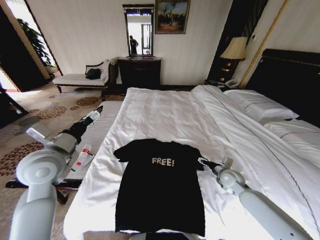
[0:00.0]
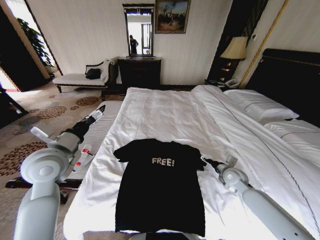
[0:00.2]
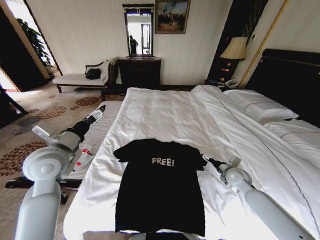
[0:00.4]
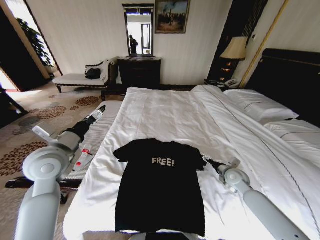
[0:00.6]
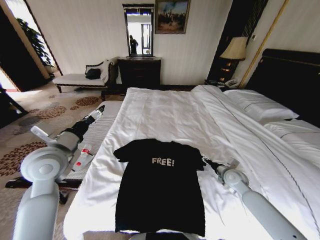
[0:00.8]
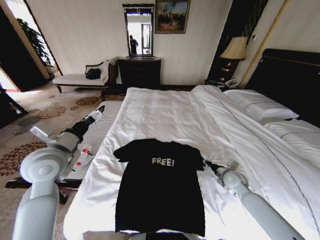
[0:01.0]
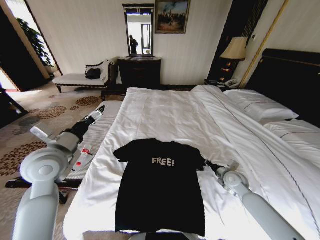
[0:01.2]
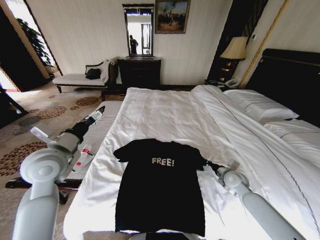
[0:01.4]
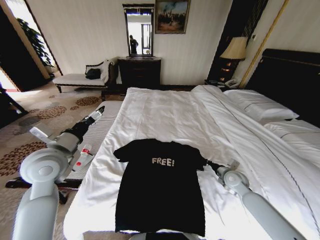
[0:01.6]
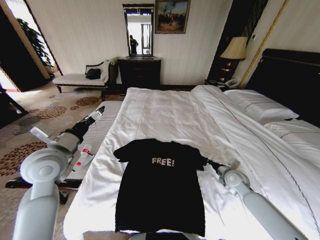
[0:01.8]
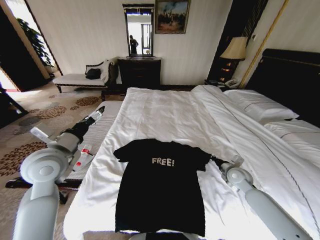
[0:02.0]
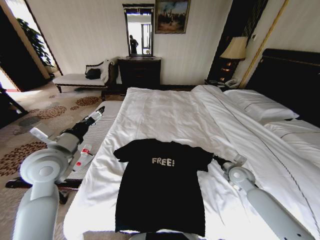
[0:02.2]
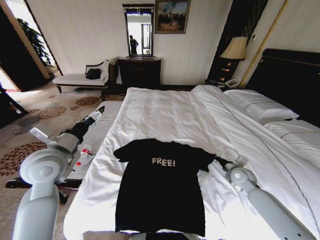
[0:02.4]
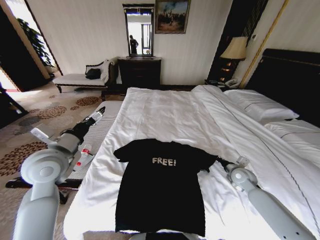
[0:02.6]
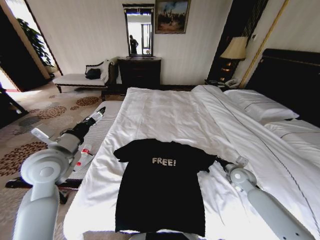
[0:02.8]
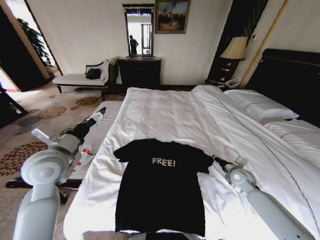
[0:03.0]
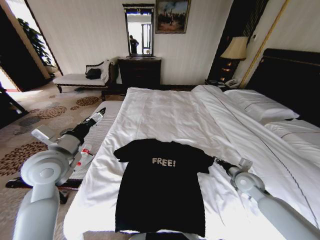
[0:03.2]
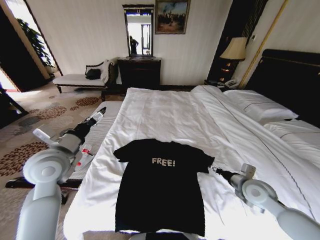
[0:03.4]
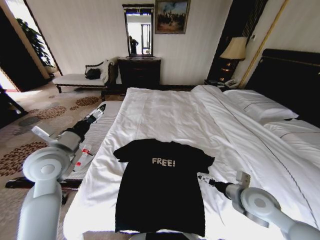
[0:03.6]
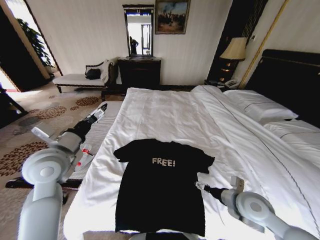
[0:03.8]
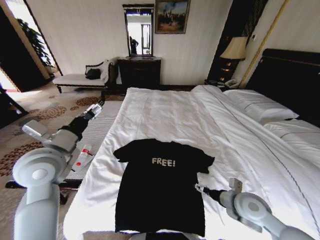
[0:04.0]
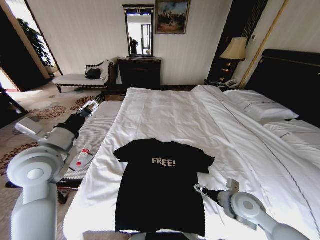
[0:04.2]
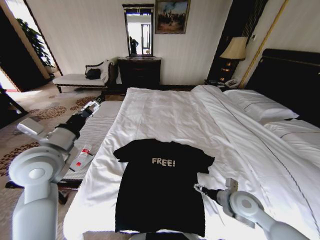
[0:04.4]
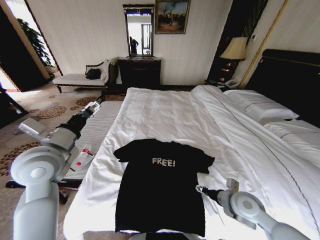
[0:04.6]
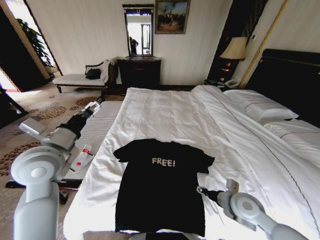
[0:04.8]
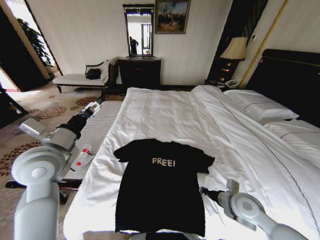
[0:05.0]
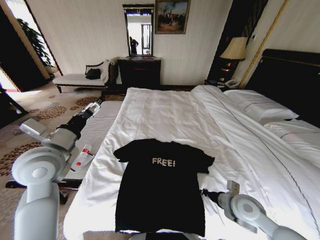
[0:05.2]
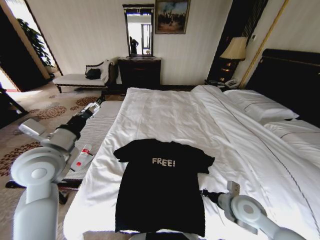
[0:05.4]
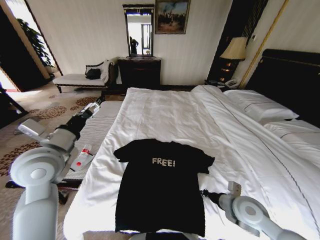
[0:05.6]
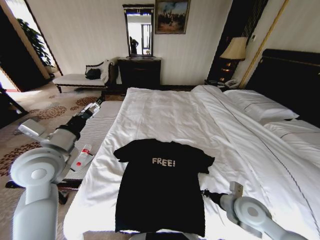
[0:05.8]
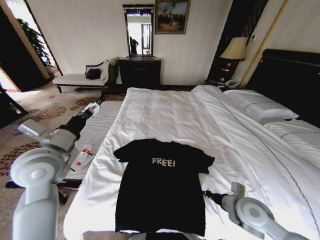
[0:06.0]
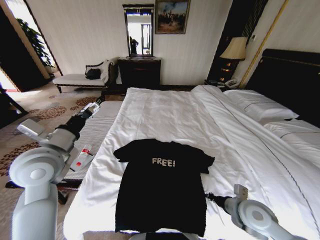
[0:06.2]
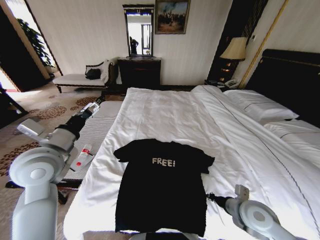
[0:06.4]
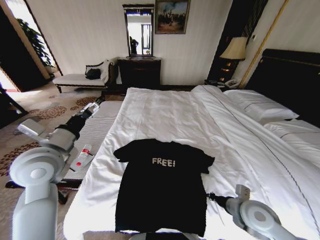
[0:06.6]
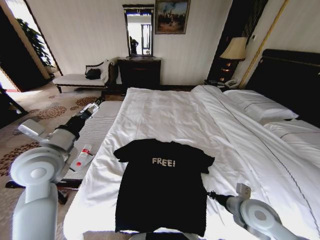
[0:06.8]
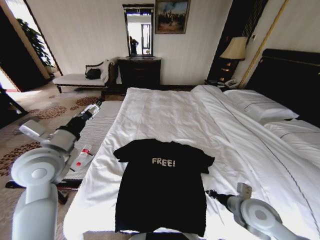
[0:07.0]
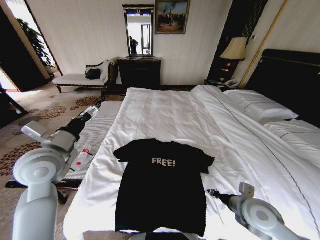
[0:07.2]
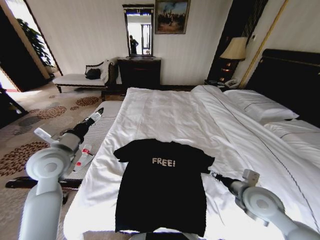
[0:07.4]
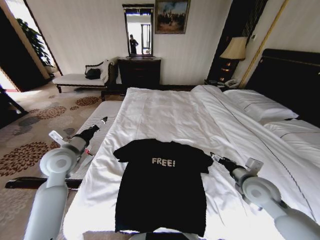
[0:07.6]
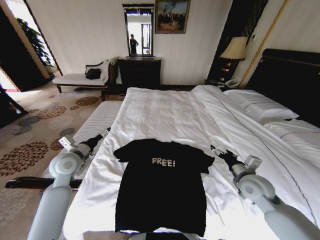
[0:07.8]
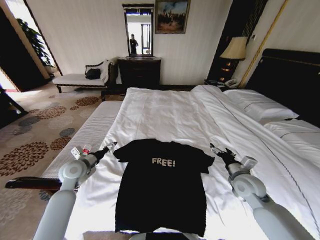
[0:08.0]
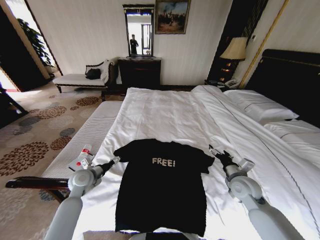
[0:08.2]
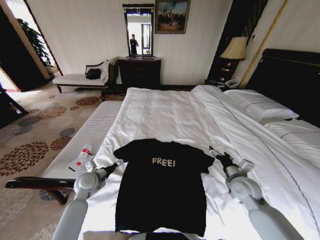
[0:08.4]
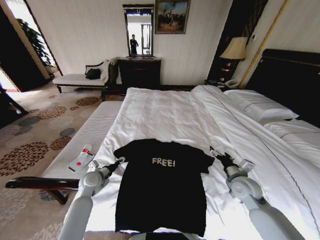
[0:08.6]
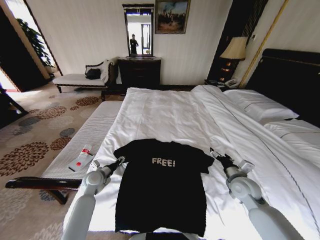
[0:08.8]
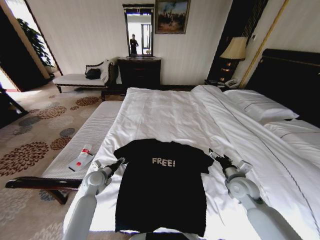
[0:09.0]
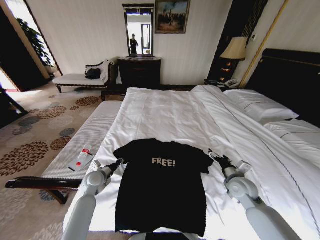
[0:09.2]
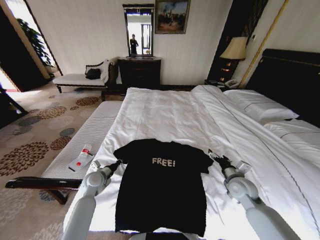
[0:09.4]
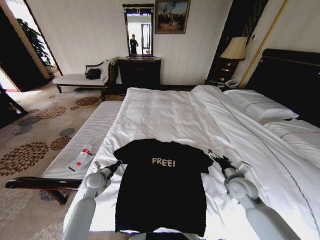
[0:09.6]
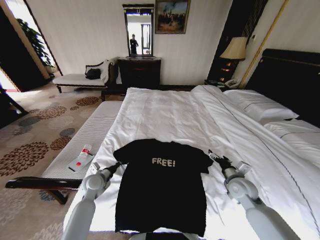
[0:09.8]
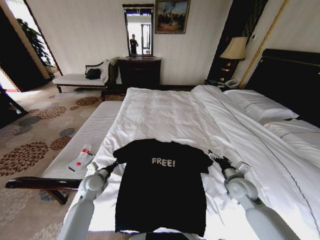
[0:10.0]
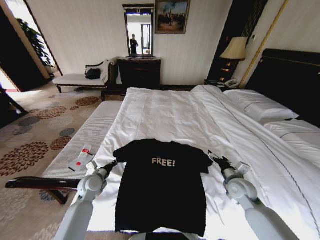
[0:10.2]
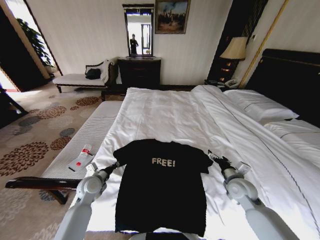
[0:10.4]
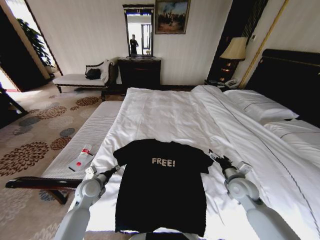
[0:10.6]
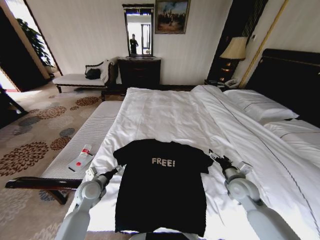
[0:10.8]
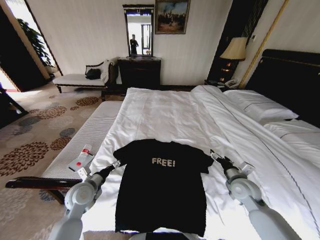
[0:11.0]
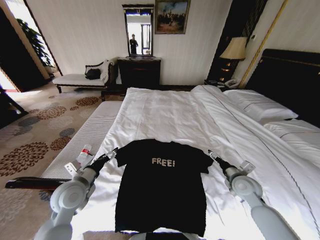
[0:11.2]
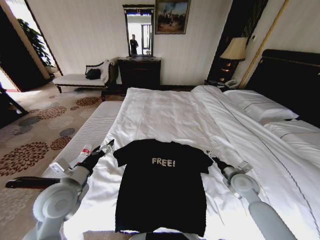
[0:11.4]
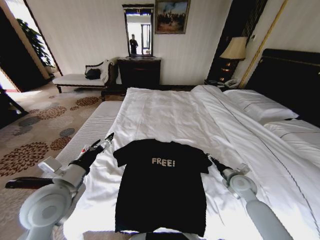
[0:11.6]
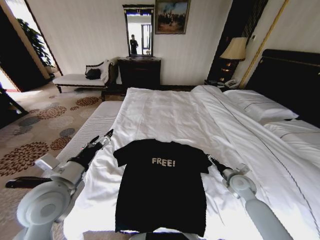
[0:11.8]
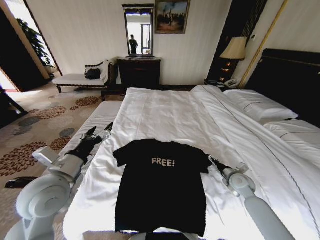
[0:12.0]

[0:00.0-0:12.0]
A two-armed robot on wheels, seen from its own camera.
Task of the whole recording: Fold the clothes on the bed.
0:00.0 to 0:01.6: The right gripper closes its fingers.
0:01.6 to 0:03.0: The grippers make only small movements.
0:03.0 to 0:04.4: The right gripper shifts approximately 15 cm backward and to the left, and opens.
0:04.4 to 0:06.0: The right gripper closes.
0:06.0 to 0:07.6: The right gripper is displaced forward by about 5 cm, and opens its fingers. Meanwhile the left gripper shifts some 10 cm downward and forward.
0:07.6 to 0:09.0: The left gripper moves downward, approximately 20 cm, and closes, while the right gripper goes some 5 cm downward.
0:09.0 to 0:10.4: There are only small adjustments of the grippers.
0:10.4 to 0:12.0: The right gripper shifts by roughly 5 cm, while the left gripper is displaced upward and backward by approximately 25 cm, and opens up.

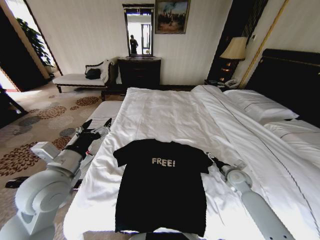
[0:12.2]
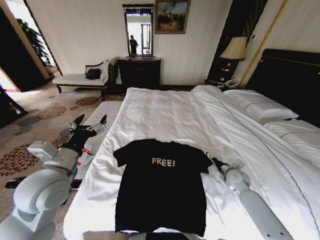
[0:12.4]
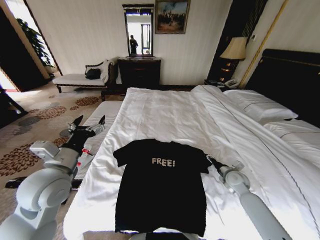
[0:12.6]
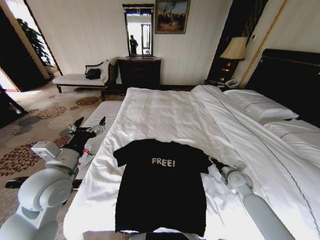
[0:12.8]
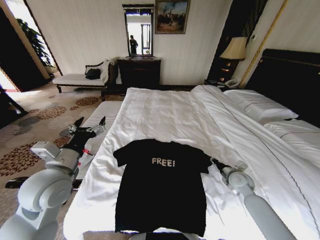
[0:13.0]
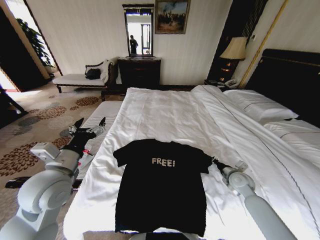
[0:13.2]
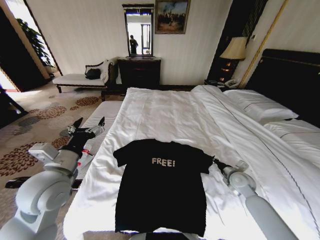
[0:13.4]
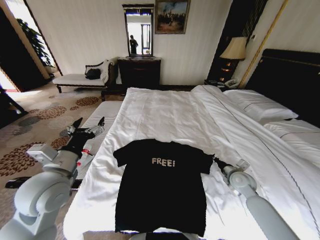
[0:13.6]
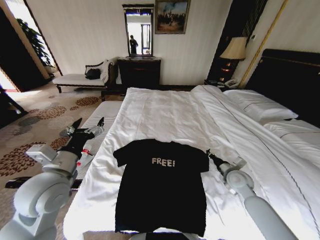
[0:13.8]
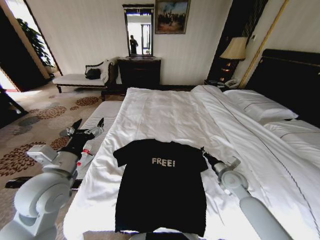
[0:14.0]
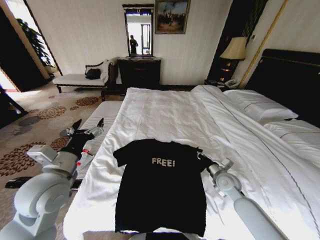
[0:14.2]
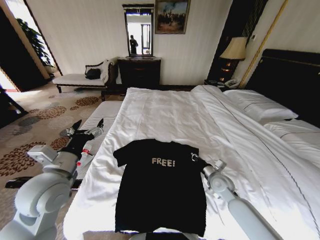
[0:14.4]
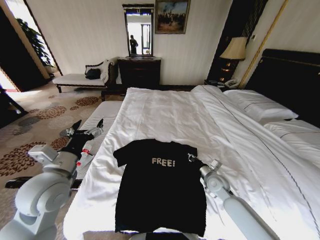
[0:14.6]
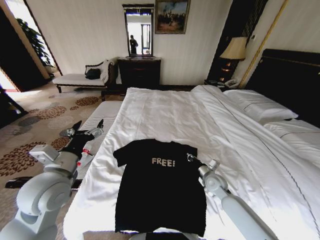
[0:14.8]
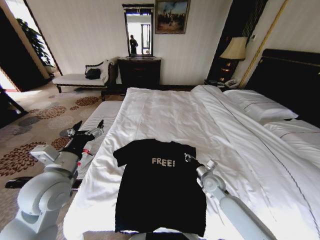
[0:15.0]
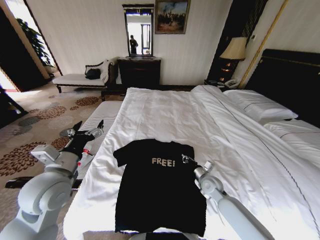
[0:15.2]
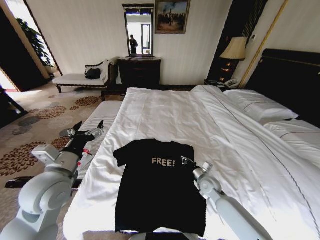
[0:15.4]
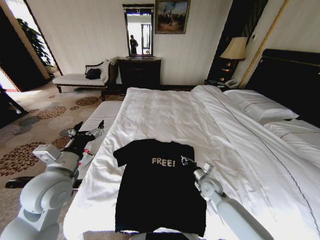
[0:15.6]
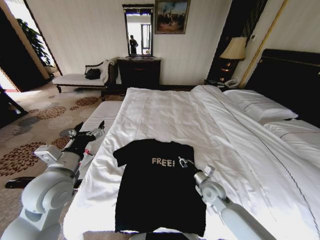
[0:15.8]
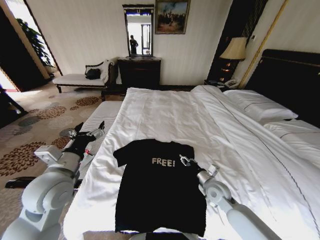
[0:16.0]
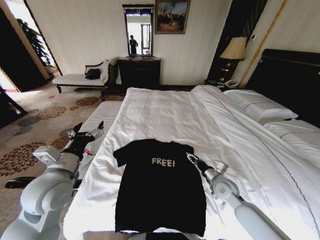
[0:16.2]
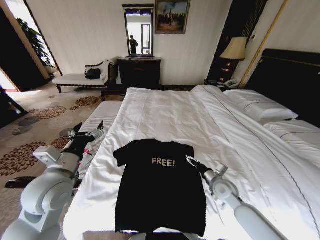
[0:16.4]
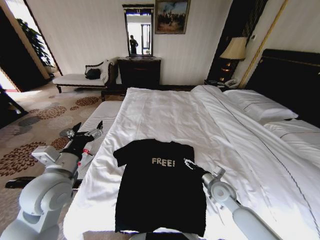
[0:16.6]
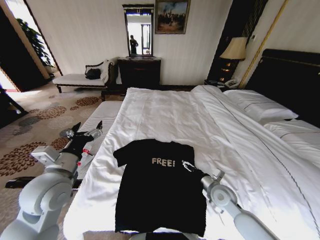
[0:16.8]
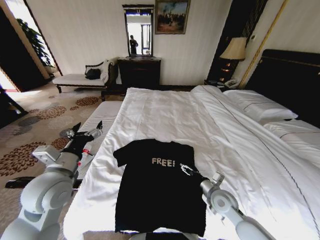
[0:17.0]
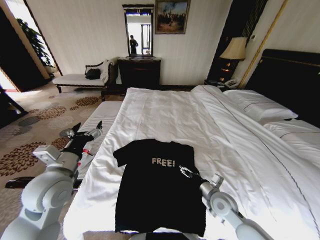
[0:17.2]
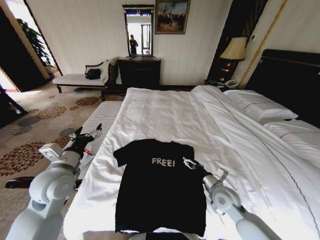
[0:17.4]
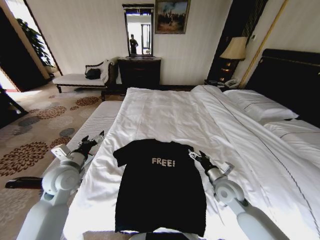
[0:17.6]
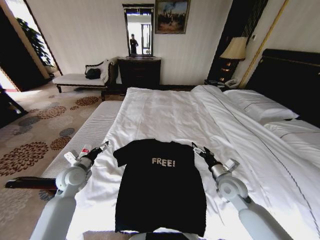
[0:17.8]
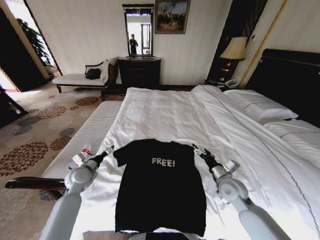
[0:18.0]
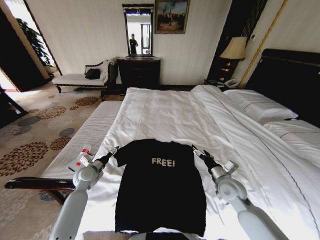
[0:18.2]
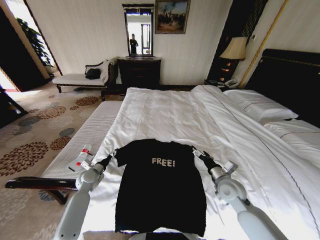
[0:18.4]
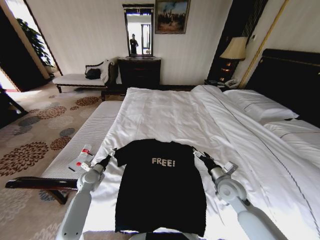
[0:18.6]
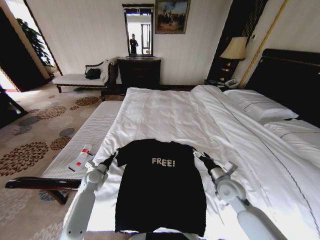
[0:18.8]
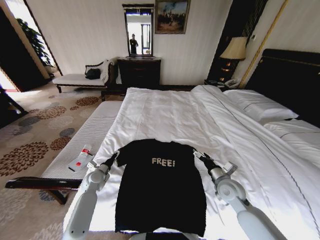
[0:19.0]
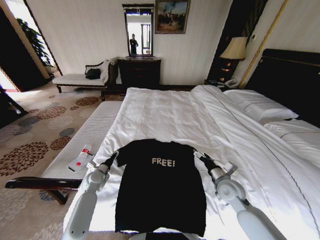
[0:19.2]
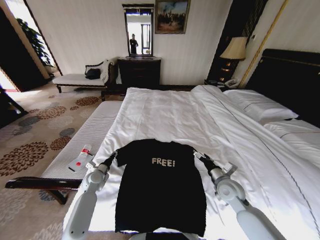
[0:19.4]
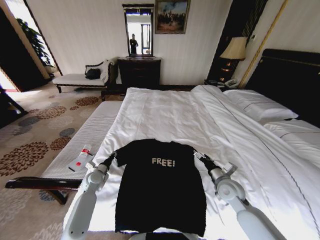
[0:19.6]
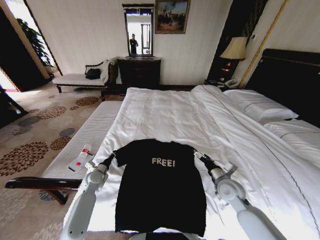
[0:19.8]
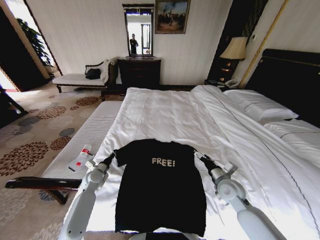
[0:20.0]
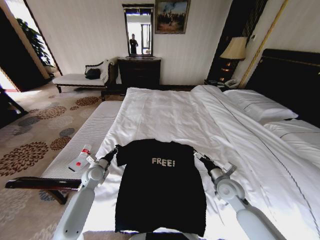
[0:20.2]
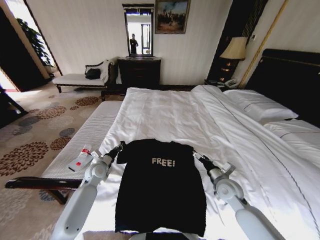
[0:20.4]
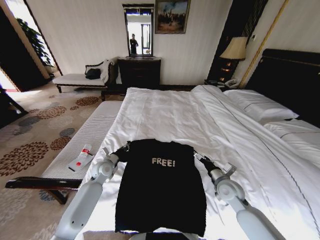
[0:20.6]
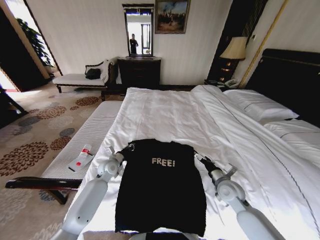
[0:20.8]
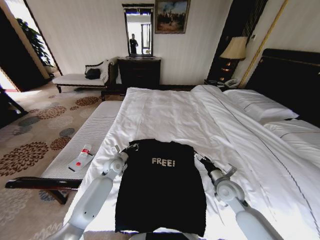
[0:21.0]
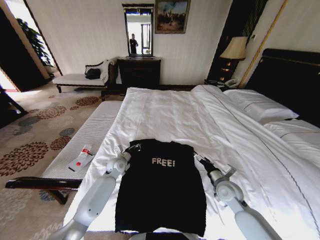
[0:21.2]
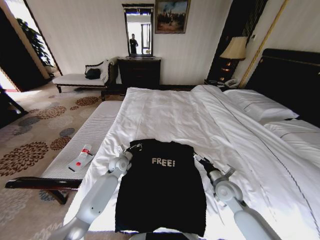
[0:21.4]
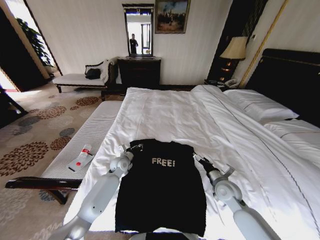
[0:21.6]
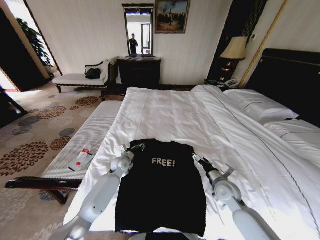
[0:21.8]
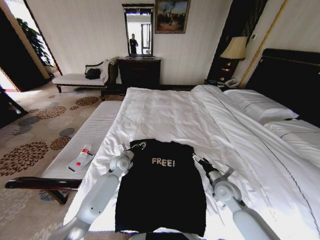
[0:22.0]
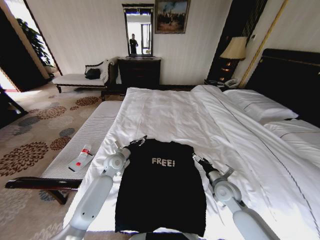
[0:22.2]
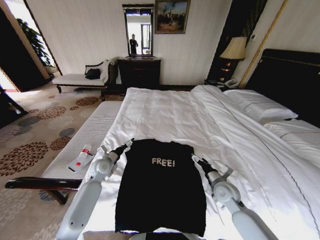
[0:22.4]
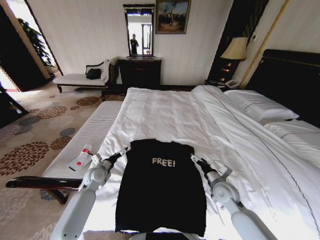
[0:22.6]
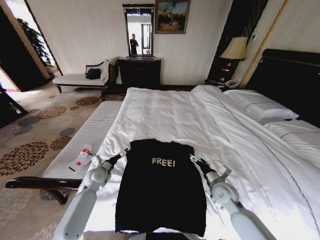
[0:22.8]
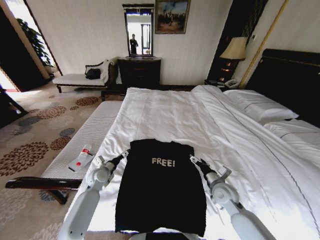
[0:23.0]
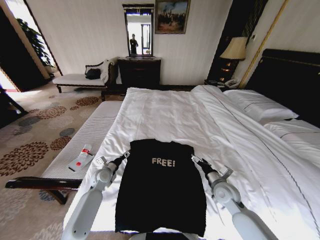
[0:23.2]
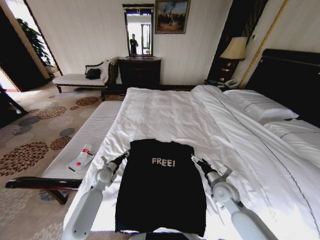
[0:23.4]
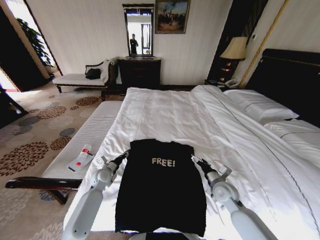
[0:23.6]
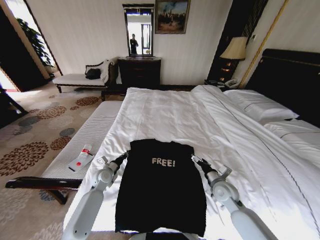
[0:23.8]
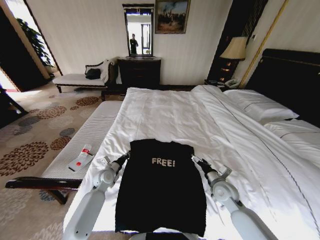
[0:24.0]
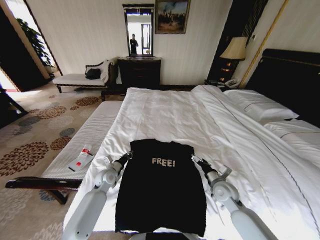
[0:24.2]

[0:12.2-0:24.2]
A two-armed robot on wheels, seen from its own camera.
Task of the whole recording: Fold the clothes on the bed.
0:12.2 to 0:13.8: The right gripper ends up roughly 5 cm from where it was, and closes its fingers.
0:13.8 to 0:15.2: The right gripper travels to the left and downward by approximately 10 cm.
0:15.2 to 0:16.6: The right gripper moves some 5 cm, and opens its fingers.
0:16.6 to 0:18.2: The left gripper moves downward and forward, approximately 25 cm.
0:18.2 to 0:19.8: The left gripper is displaced downward by some 5 cm, and closes up.
0:19.8 to 0:21.2: The left gripper heads to the right and forward, covering about 15 cm.
0:21.2 to 0:22.6: The left gripper travels to the left and backward by about 10 cm, and opens up.
0:22.6 to 0:24.2: The left gripper ends up some 5 cm from where it was, and closes.
